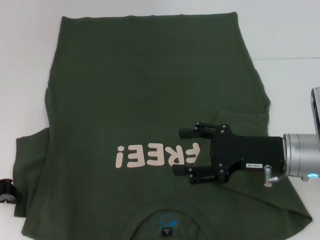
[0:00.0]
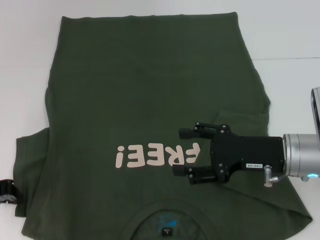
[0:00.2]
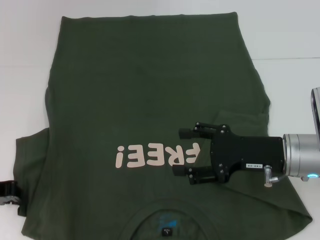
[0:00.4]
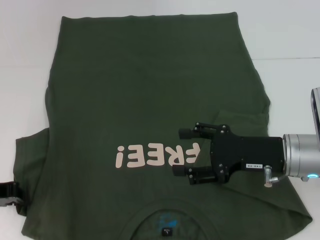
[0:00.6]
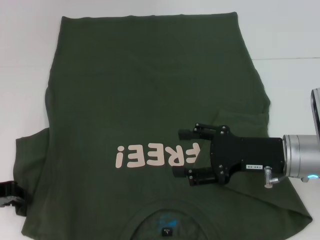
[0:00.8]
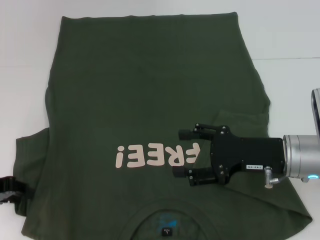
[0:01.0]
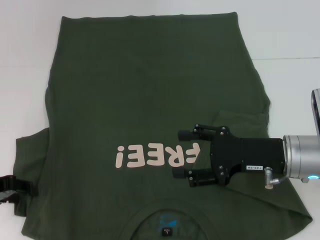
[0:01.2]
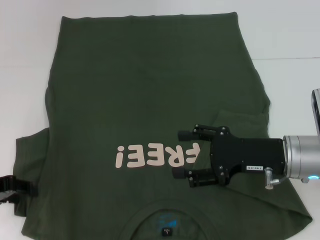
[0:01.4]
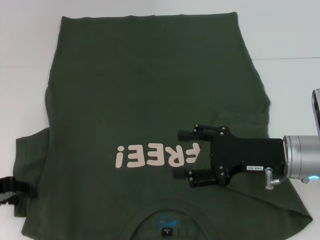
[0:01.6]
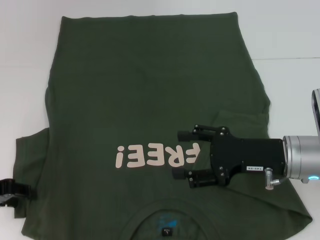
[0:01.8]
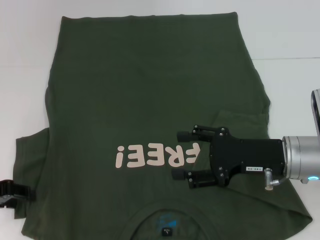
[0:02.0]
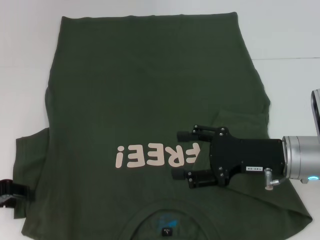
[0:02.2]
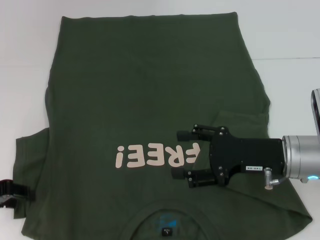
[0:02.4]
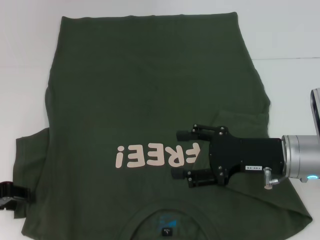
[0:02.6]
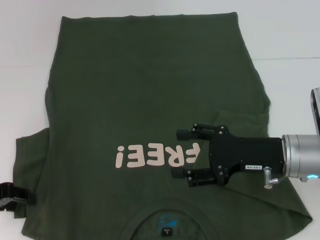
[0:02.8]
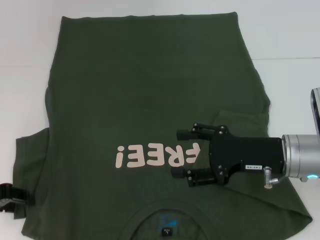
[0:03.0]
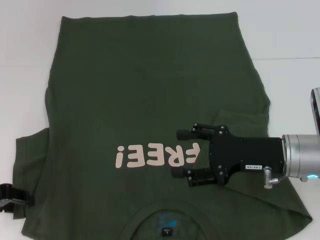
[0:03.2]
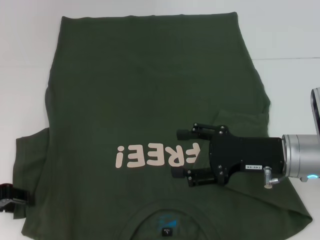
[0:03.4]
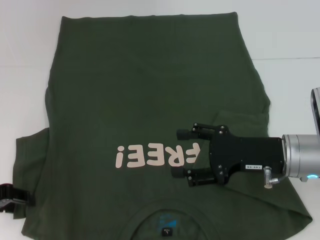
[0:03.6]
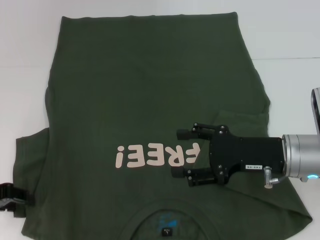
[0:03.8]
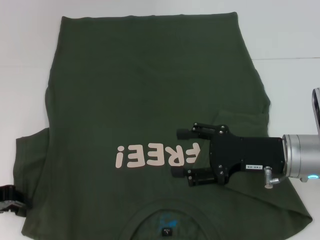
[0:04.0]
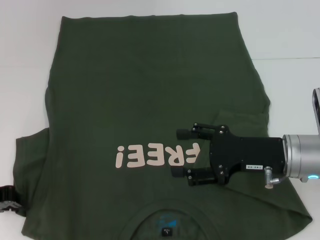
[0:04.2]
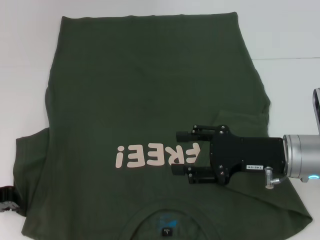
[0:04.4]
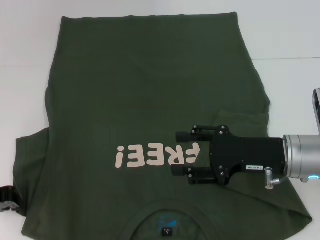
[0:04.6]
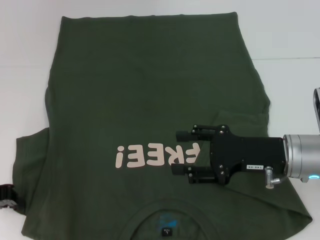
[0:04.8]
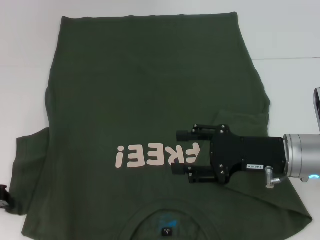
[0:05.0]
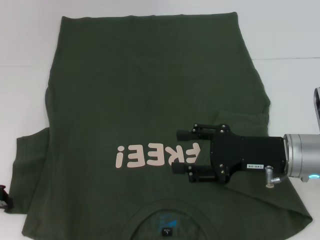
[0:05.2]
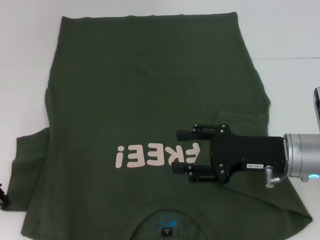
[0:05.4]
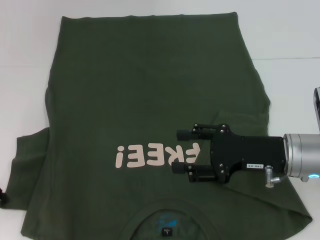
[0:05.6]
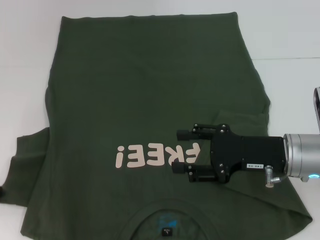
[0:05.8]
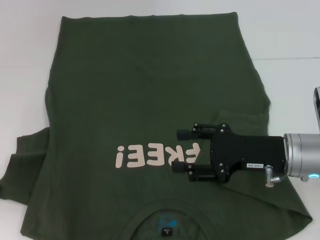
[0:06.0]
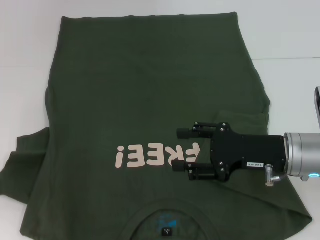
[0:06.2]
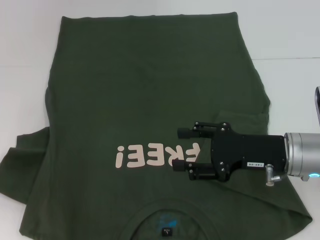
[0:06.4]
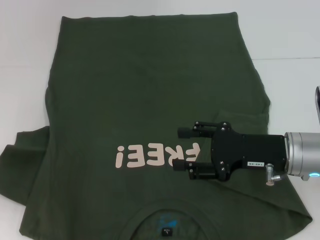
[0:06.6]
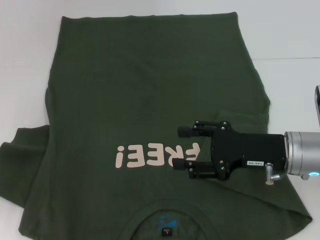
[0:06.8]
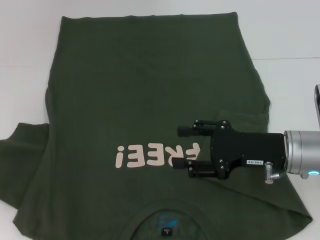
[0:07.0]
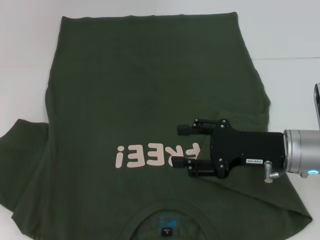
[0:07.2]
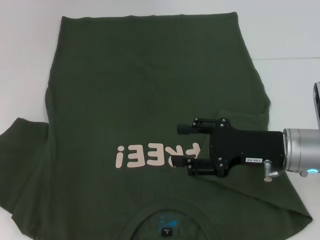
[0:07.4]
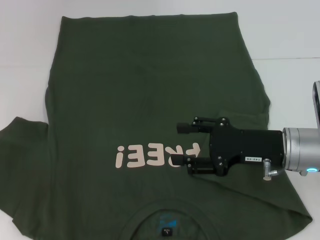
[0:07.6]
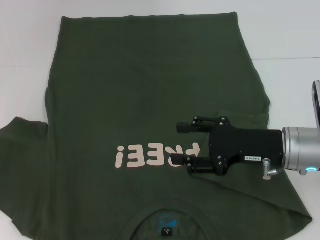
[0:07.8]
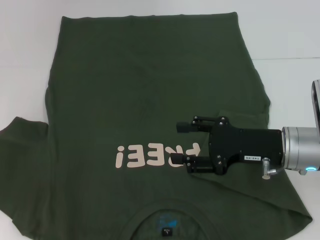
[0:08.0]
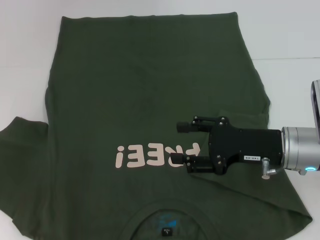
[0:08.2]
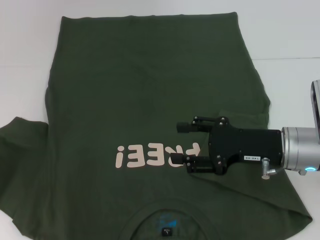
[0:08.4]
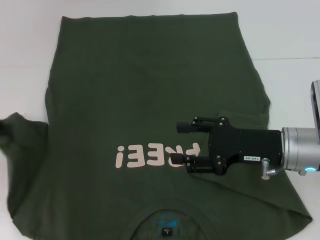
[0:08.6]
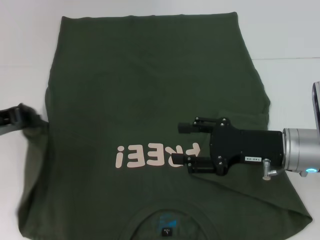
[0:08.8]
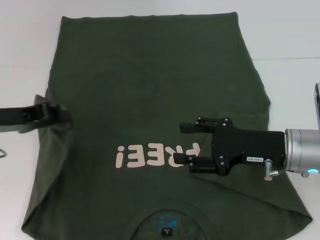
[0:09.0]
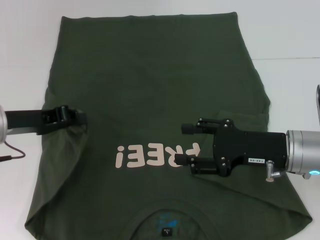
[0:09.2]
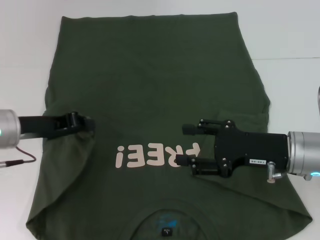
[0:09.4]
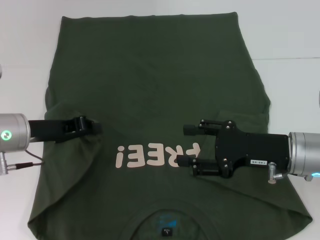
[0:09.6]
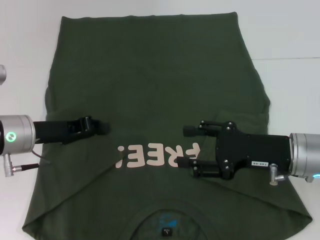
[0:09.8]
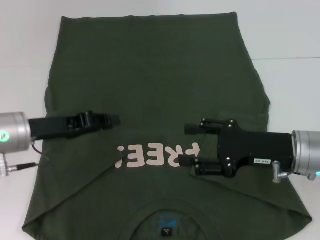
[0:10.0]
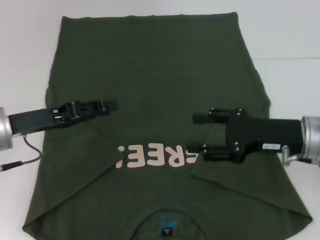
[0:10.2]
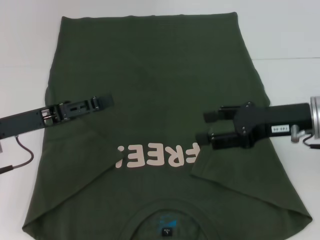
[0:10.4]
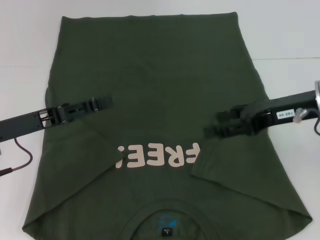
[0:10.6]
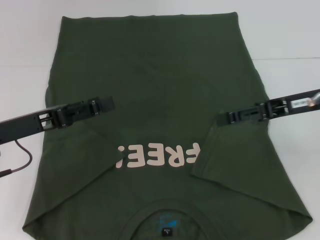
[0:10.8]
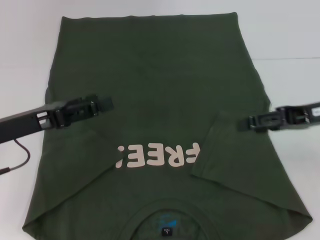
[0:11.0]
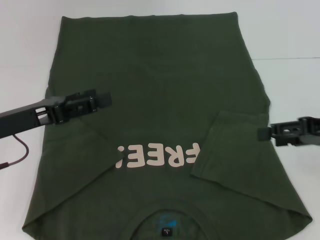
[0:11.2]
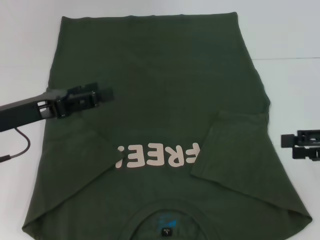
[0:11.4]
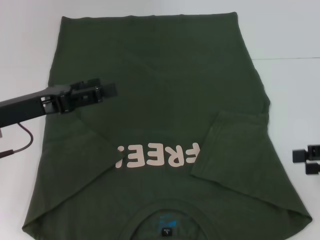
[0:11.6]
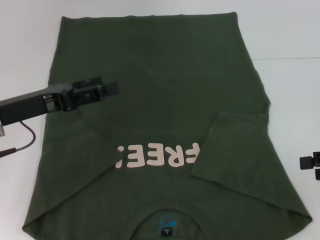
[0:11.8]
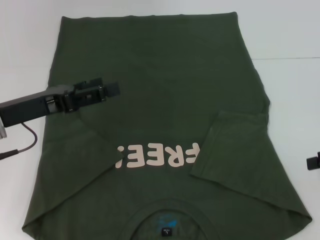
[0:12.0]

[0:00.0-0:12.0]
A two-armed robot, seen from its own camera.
Step, 0:00.0 to 0:09.6: Fold the bottom left sleeve with your left hand.
0:00.0 to 0:01.6: The left gripper opens up.
0:01.6 to 0:03.0: Both grippers stay put.
0:03.0 to 0:04.4: The left gripper closes.
0:04.4 to 0:06.0: The grippers stay close to where they were, moving slightly.
0:06.0 to 0:07.6: There are only small adjustments of the grippers.
0:07.6 to 0:09.0: The left gripper moves to the right, about 10 cm.
0:09.0 to 0:10.4: The right gripper is displaced upward by roughly 5 cm, while the left gripper opens up.
0:10.4 to 0:12.0: The right gripper moves to the right, approximately 15 cm. The left gripper opens up.

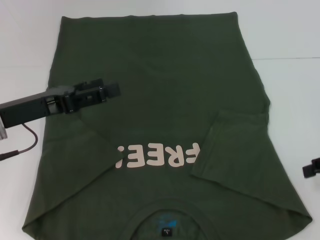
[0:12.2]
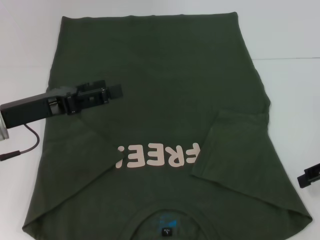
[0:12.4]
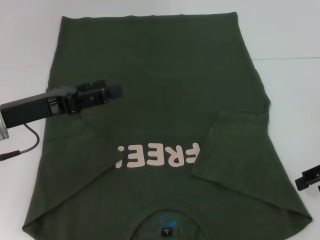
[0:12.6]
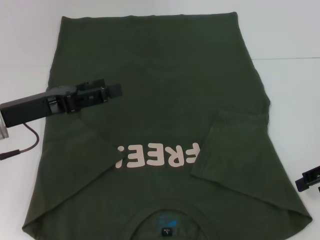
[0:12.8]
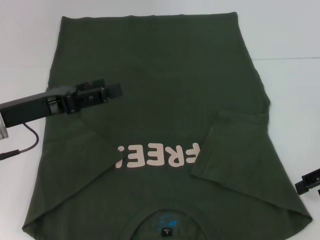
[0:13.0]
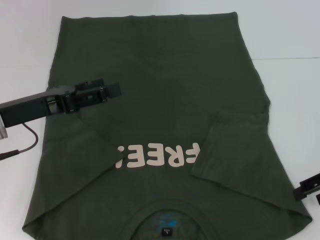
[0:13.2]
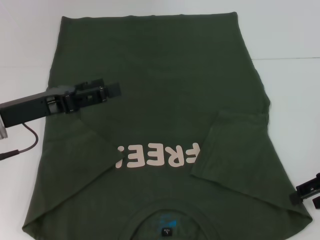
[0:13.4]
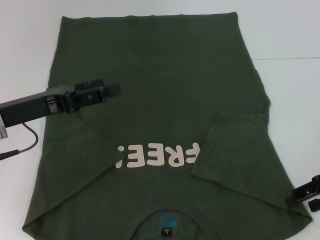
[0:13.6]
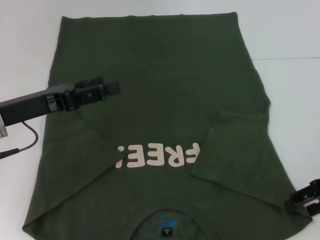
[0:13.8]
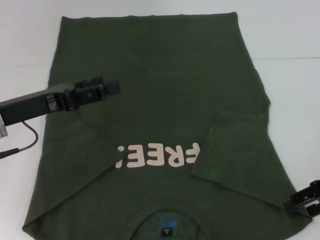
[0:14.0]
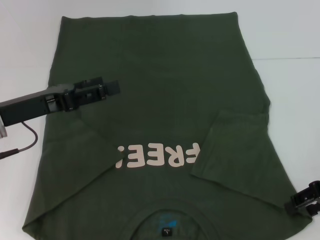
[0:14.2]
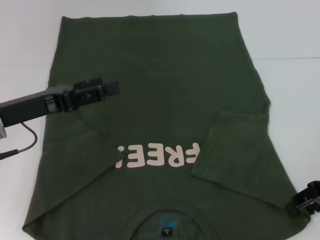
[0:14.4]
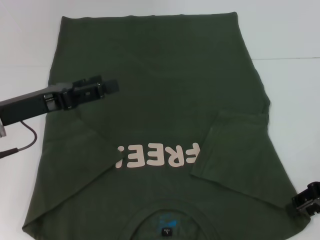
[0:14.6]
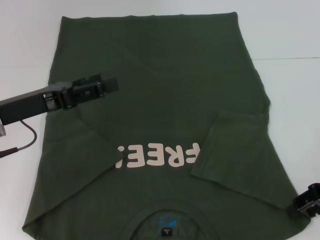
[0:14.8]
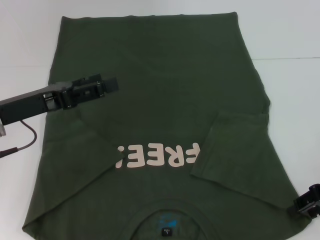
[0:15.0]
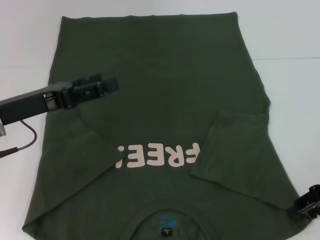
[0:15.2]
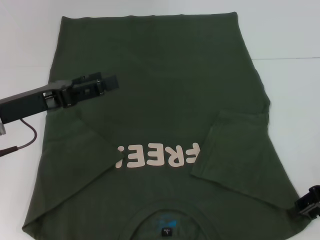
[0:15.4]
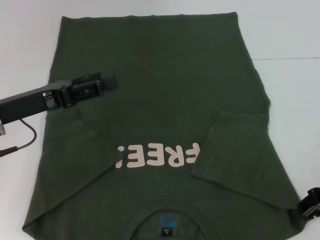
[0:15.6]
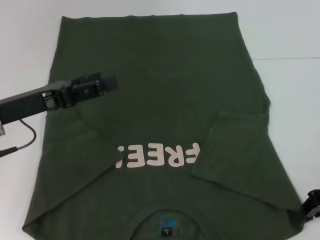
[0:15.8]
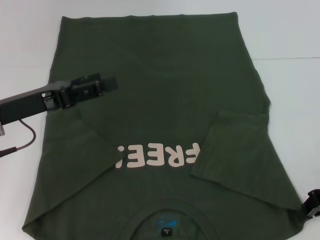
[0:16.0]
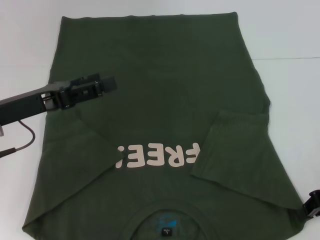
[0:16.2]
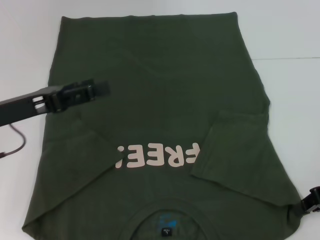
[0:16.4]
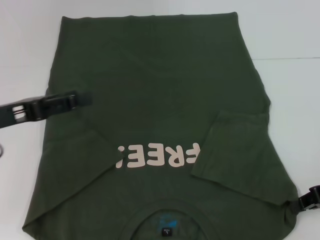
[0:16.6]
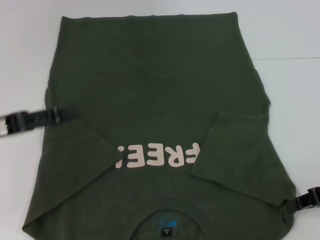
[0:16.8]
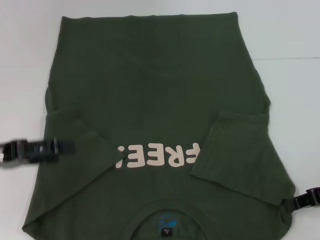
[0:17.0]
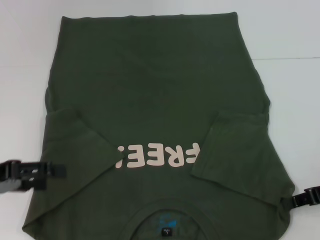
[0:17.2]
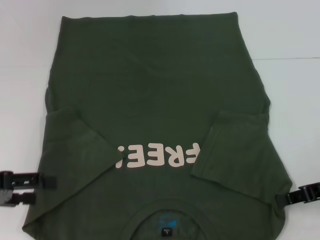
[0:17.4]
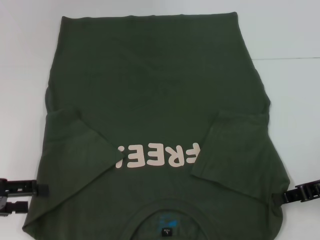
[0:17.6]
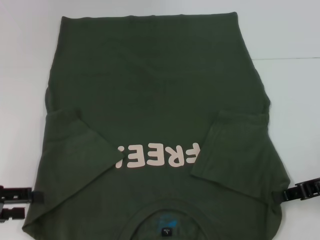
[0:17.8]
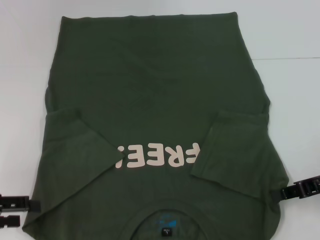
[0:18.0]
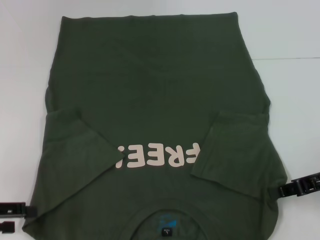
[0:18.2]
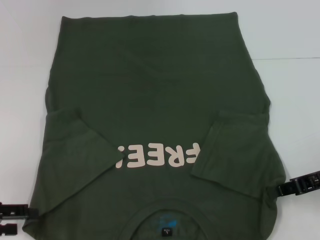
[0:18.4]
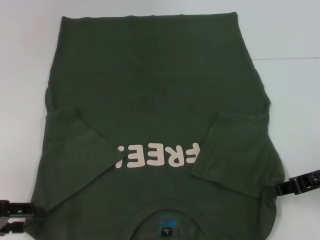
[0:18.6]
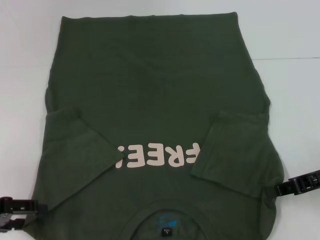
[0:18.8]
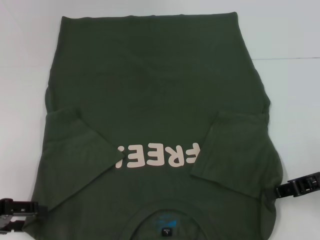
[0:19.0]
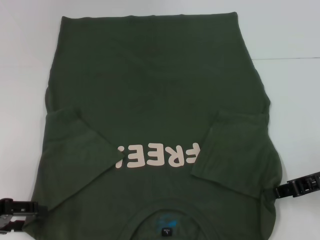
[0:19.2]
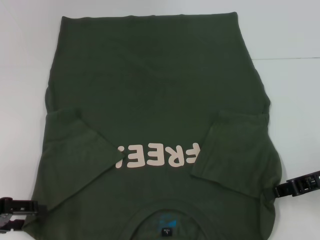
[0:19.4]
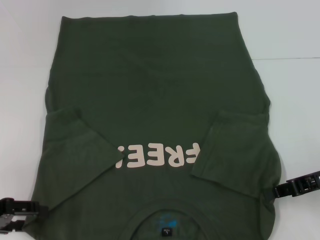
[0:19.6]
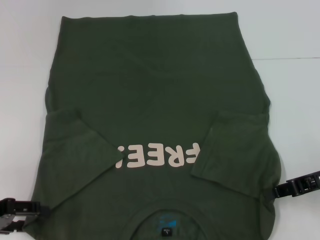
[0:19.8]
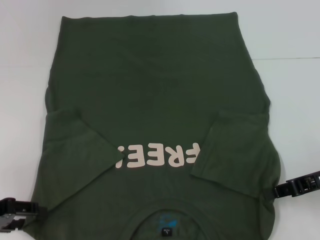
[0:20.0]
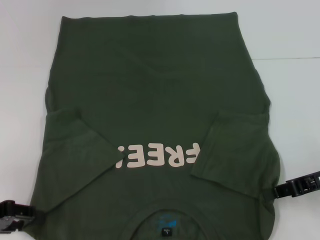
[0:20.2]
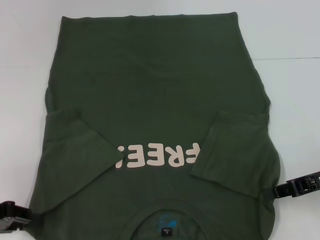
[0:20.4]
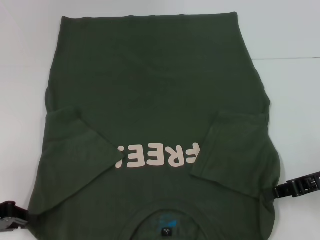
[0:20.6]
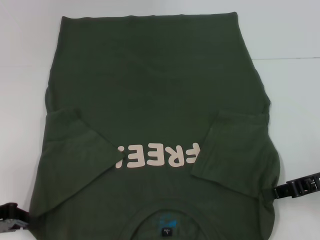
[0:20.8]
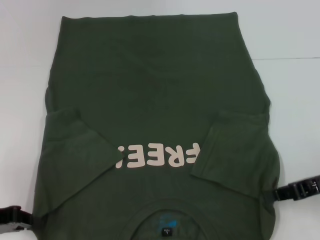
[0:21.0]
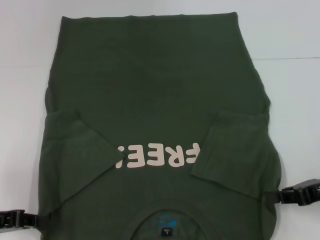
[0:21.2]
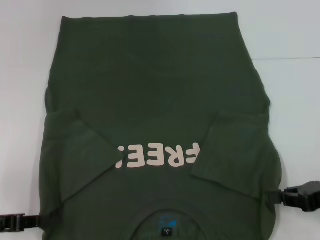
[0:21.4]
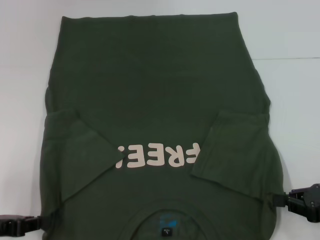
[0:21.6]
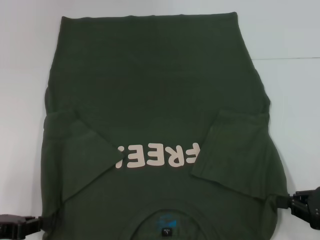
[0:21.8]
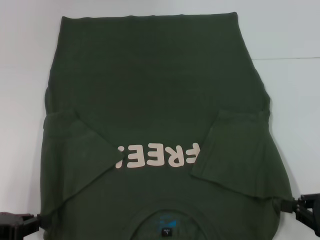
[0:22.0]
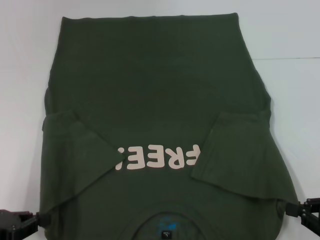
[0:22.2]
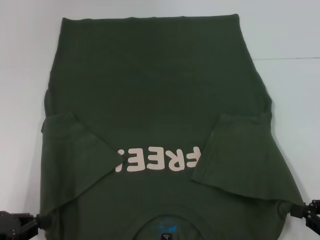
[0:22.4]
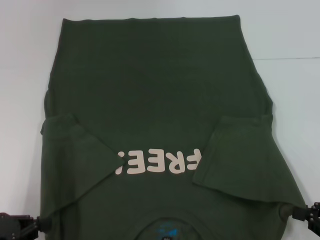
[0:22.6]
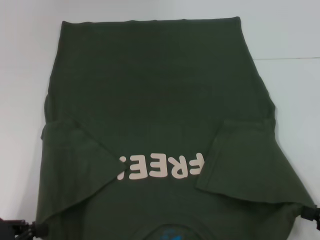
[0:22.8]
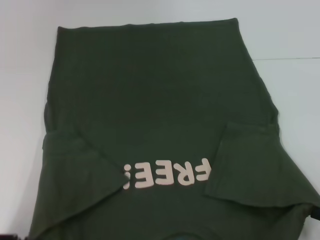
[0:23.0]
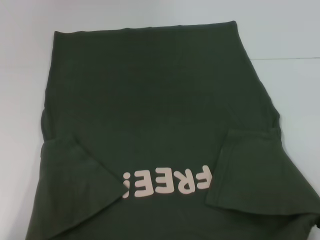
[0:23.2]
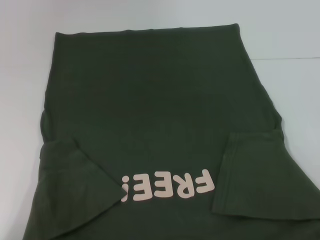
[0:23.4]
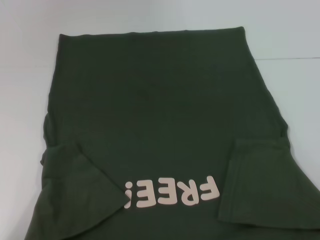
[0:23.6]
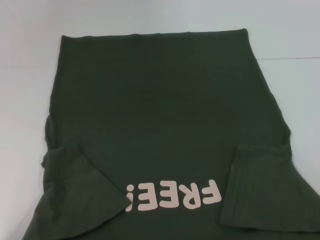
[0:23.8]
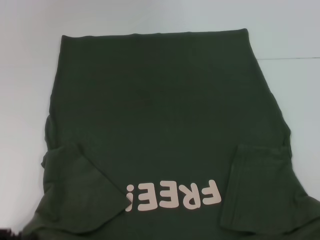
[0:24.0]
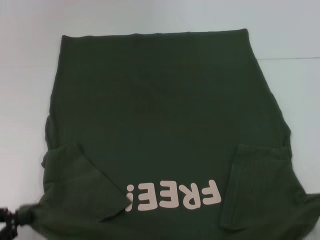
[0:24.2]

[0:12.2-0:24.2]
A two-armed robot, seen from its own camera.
Step, 0:12.2 to 0:16.0: Grab the bottom right corner with your right hand.
Step, 0:16.2 to 0:21.0: Grab the bottom left corner with your left hand.
0:12.2 to 0:13.8: The grippers move only a little.
0:13.8 to 0:15.2: Neither gripper changes place.
0:15.2 to 0:16.6: The right gripper closes its fingers.
0:16.6 to 0:18.2: The left gripper moves backward and to the left, some 10 cm.
0:18.2 to 0:19.8: The grippers stay close to where they were, moving slightly.
0:19.8 to 0:21.2: The left gripper closes its fingers.
0:21.2 to 0:22.6: The left gripper changes place by some 5 cm, while the right gripper travels backward by approximately 10 cm.
